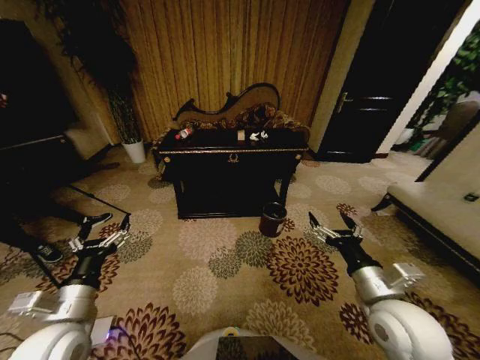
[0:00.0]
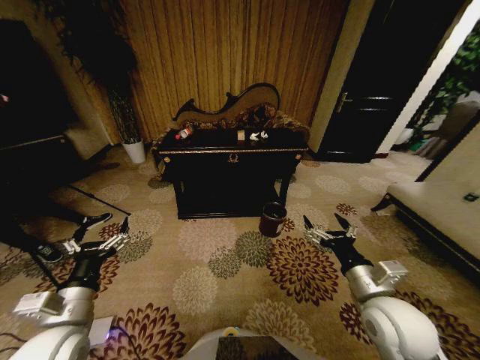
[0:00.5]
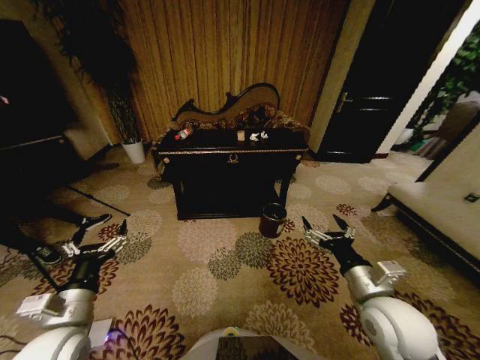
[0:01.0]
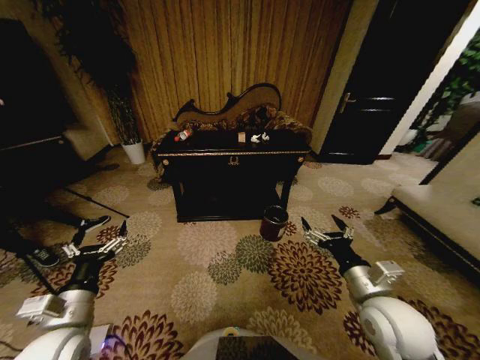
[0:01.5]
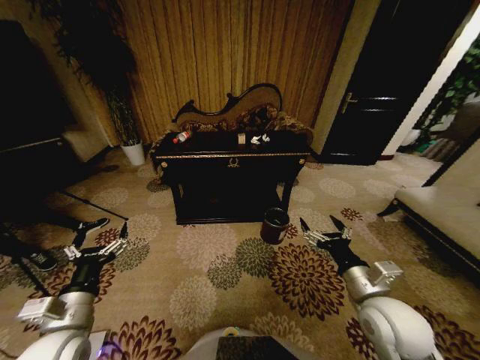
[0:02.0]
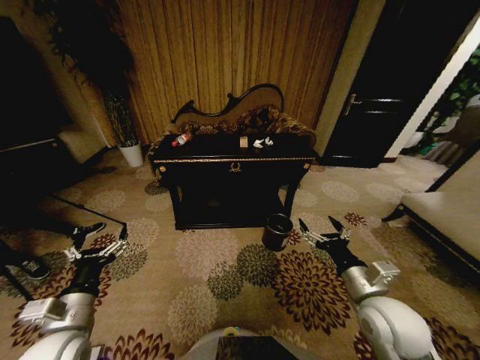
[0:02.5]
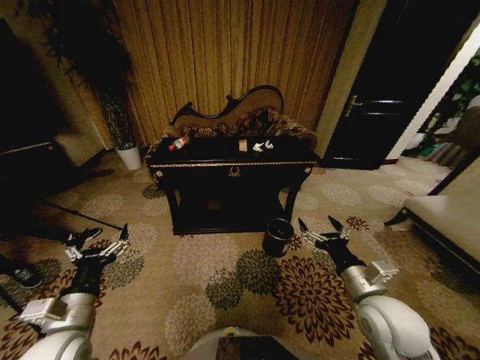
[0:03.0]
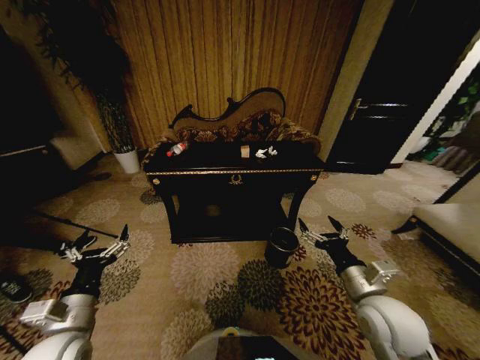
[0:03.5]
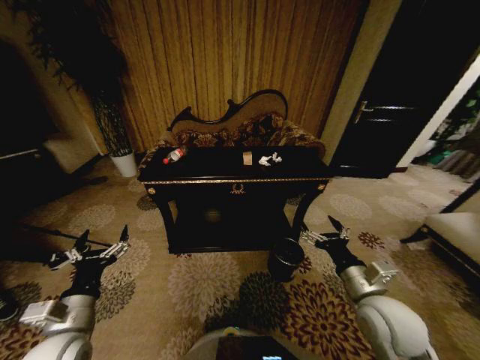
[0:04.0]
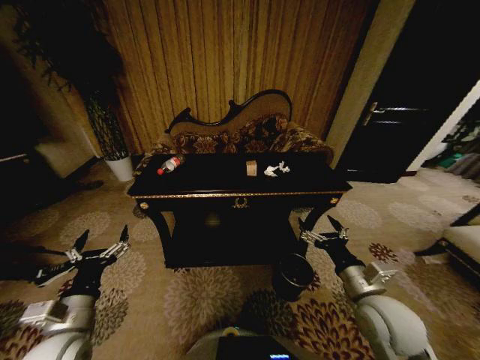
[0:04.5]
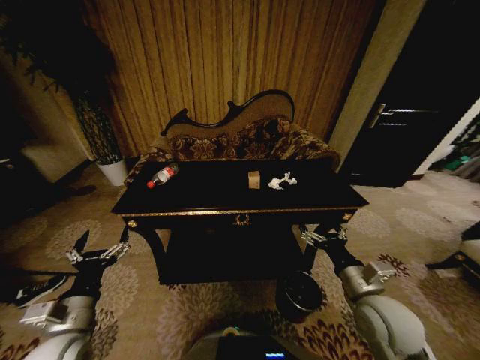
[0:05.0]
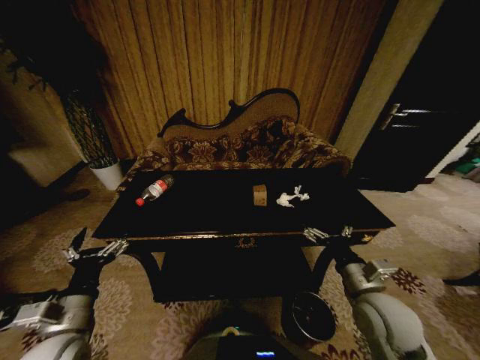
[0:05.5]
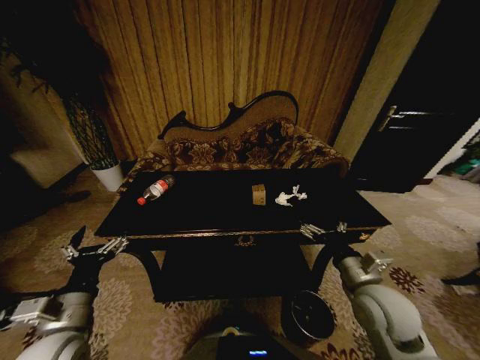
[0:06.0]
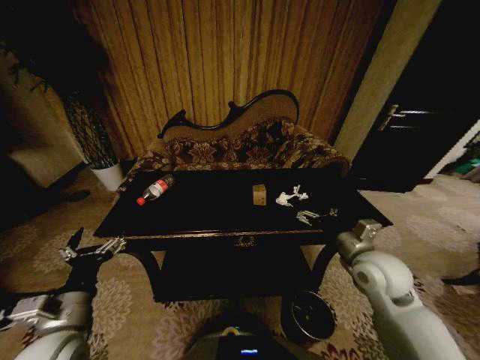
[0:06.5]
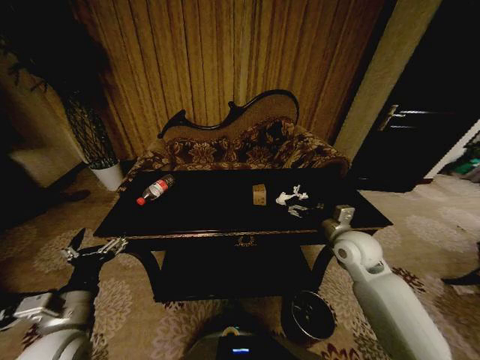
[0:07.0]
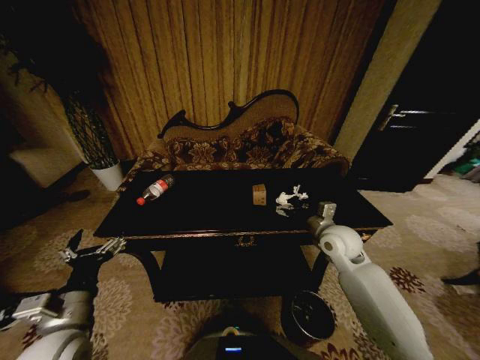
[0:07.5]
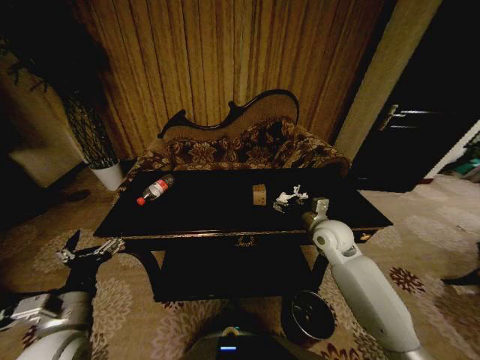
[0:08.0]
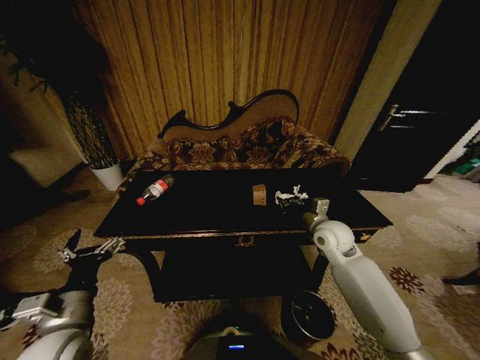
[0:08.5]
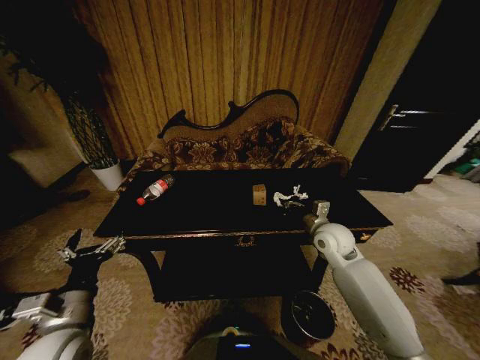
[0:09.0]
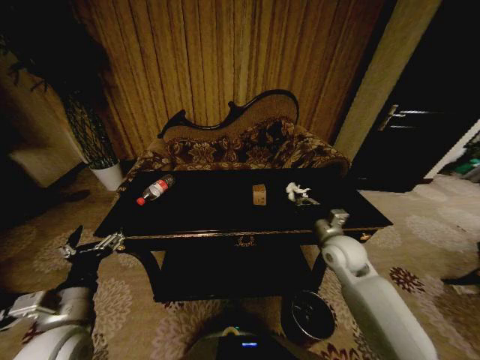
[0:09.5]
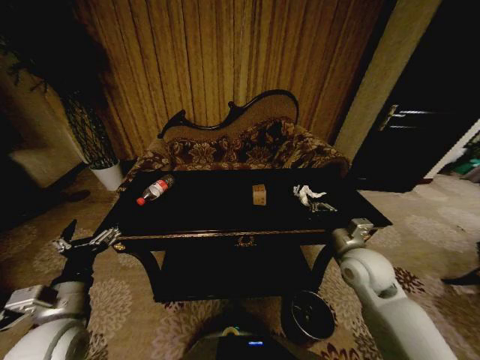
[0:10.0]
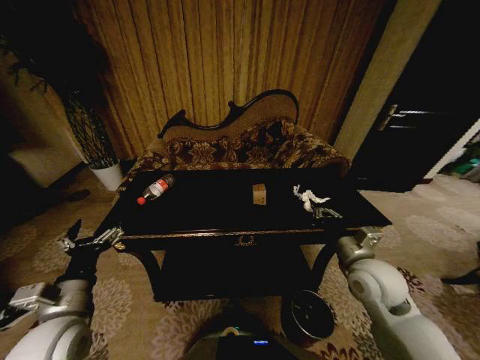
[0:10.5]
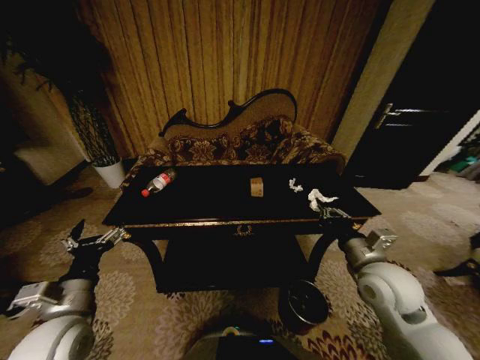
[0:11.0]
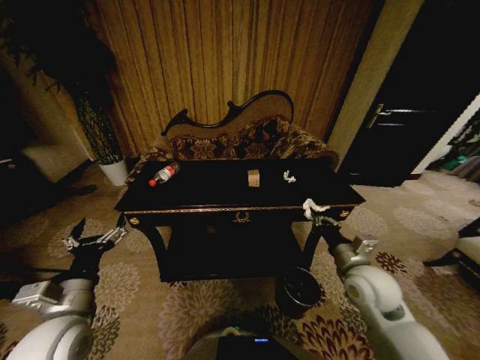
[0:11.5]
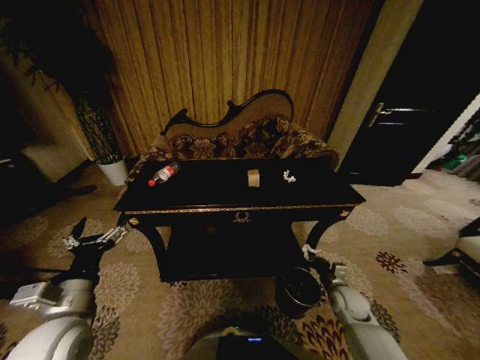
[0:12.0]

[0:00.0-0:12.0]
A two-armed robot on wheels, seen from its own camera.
Task of the whole recording: Move to the front of the table and place the trash on the table into the trash bin.
0:06.0 to 0:08.0: The right gripper is displaced forward by approximately 15 cm.
0:08.0 to 0:10.0: The right gripper heads backward, covering some 10 cm, and closes up.
0:10.0 to 0:12.0: The right gripper travels downward by roughly 20 cm.

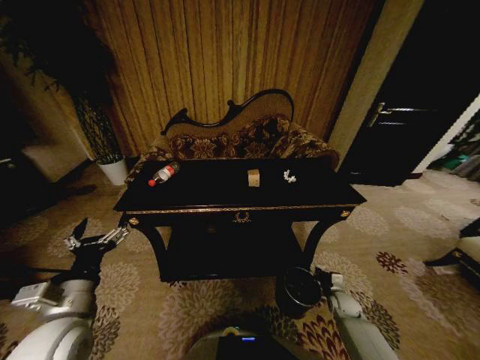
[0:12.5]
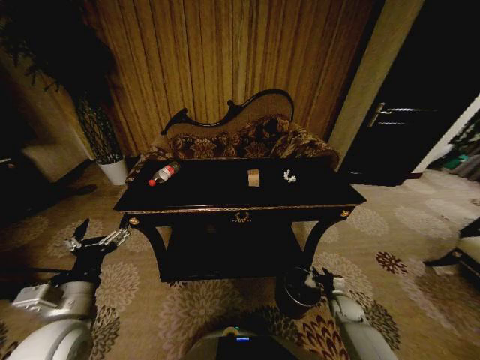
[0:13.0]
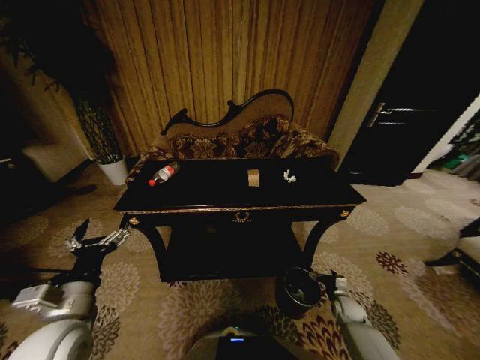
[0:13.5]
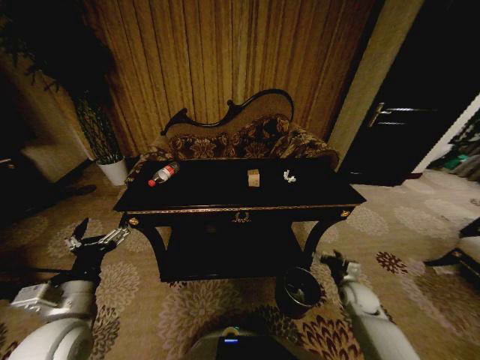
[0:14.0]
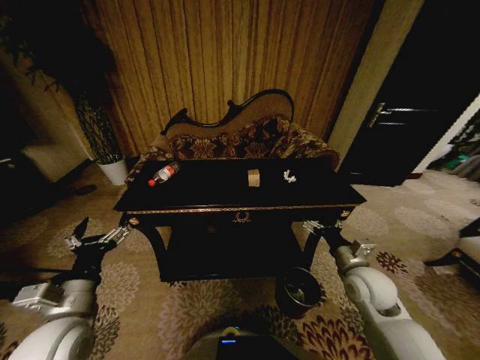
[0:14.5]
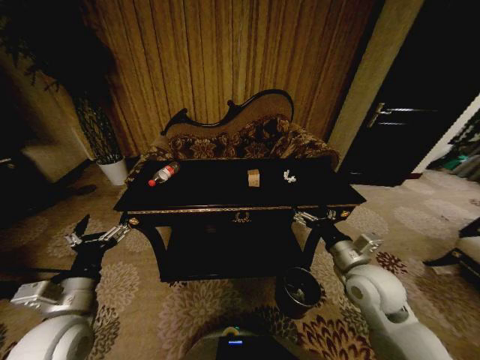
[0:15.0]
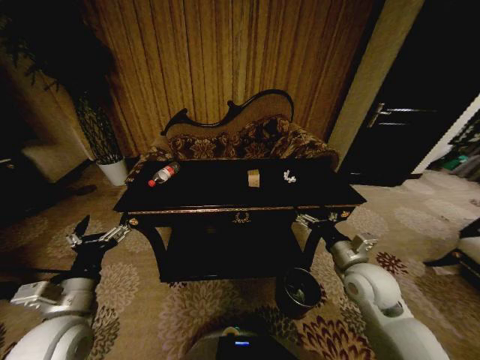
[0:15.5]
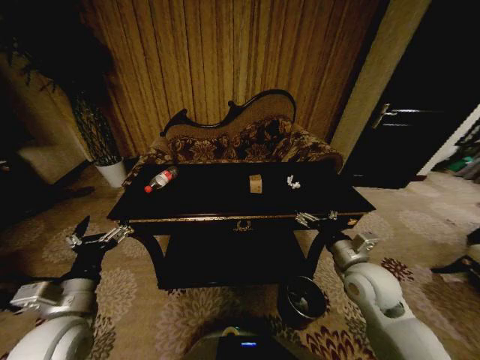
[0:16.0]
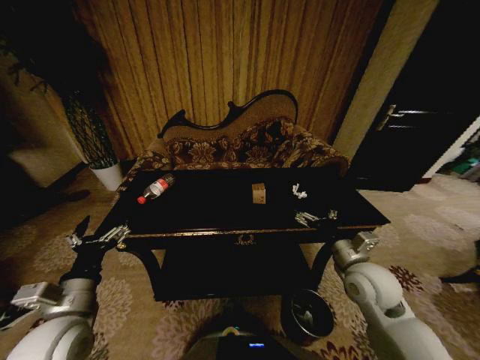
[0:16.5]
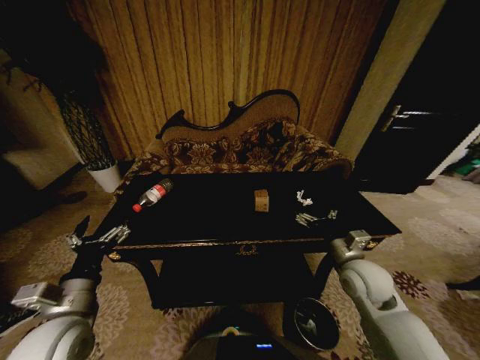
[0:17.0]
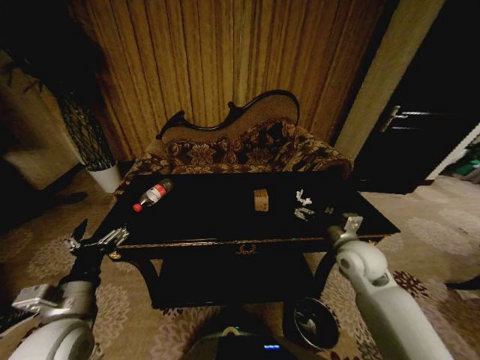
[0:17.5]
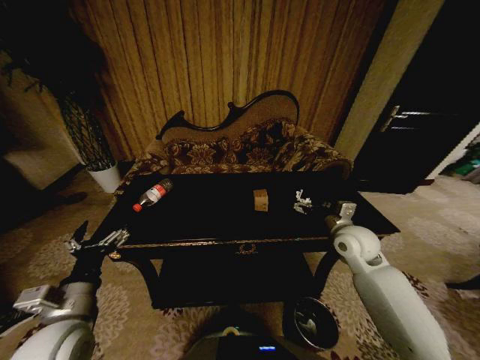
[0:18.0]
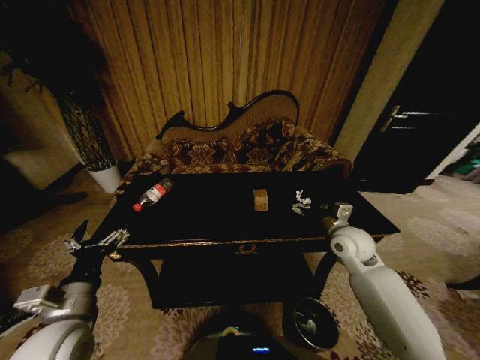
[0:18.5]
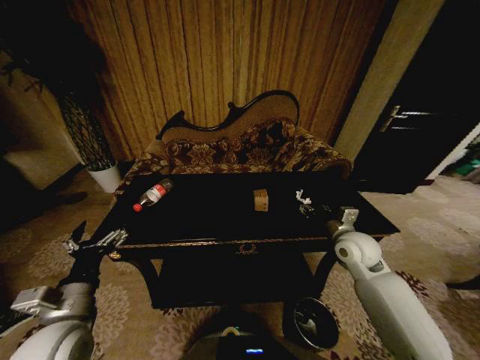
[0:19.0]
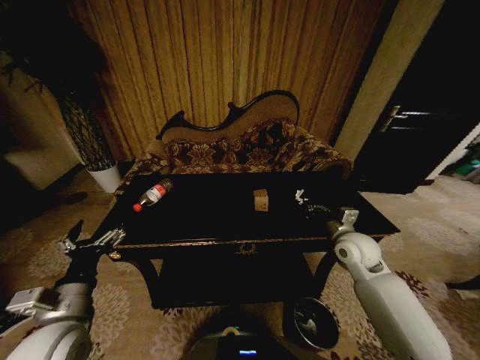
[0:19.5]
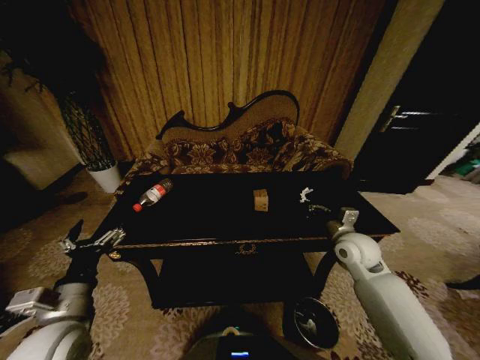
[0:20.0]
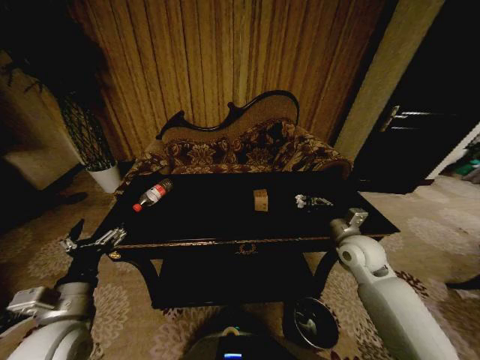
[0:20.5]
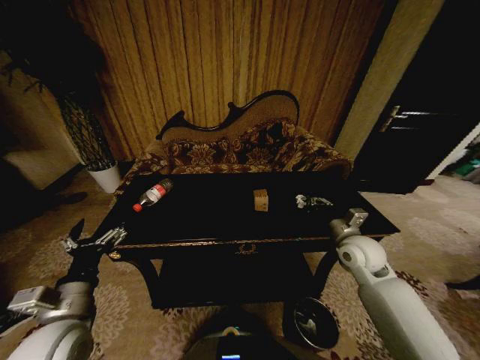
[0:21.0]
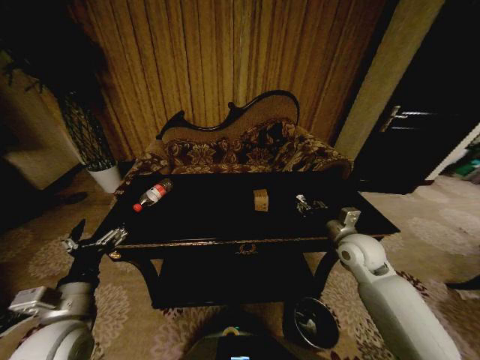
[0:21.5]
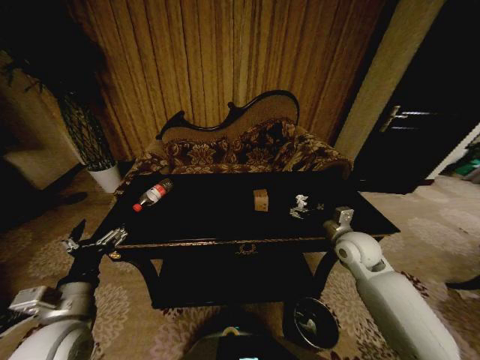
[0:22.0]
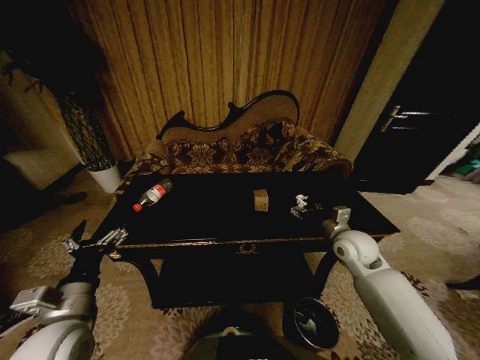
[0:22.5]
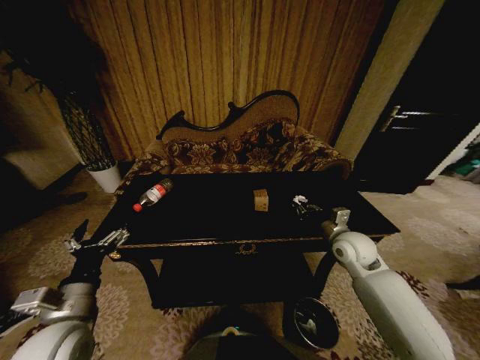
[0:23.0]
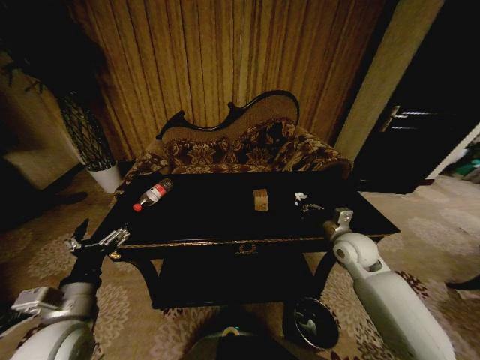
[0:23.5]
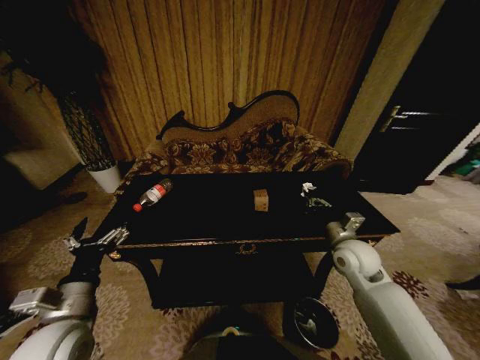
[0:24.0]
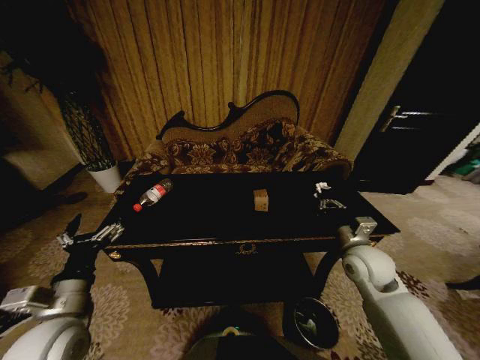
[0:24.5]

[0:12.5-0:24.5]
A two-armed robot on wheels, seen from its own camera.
Task of the whole recording: Move to the front of the table and place the trash on the table into the trash bin.
0:12.5 to 0:14.5: The right gripper shifts some 25 cm upward, and opens.
0:16.5 to 0:18.5: The right gripper is displaced forward by about 10 cm.
0:18.5 to 0:20.5: The right gripper closes up.
0:20.5 to 0:22.5: The right gripper opens its fingers.
0:22.5 to 0:24.5: The right gripper shifts roughly 5 cm backward, and closes.

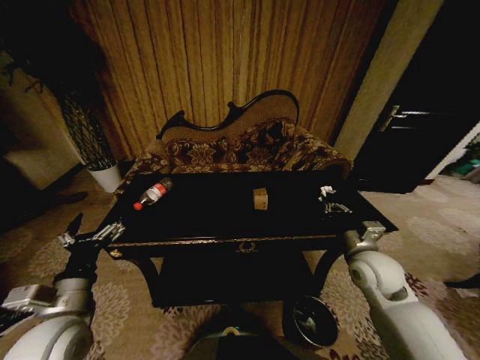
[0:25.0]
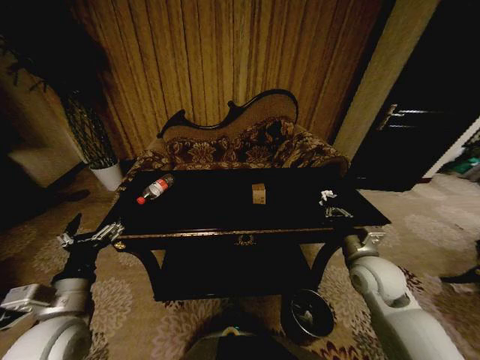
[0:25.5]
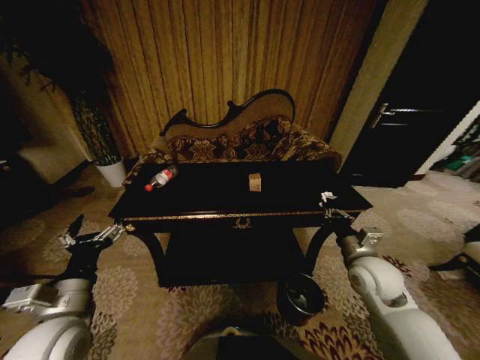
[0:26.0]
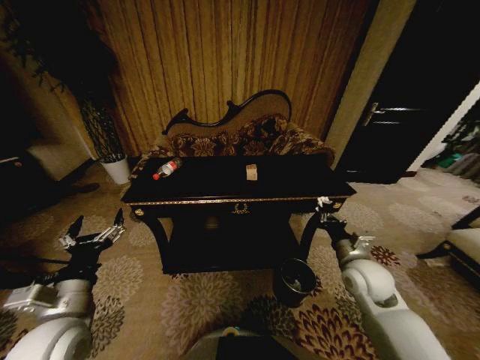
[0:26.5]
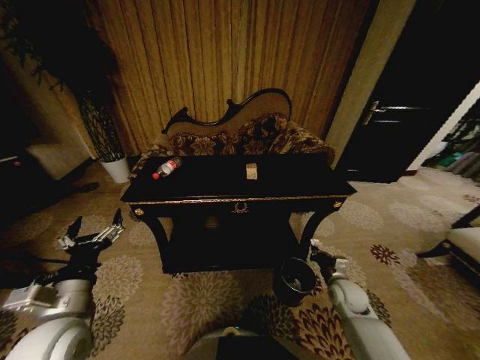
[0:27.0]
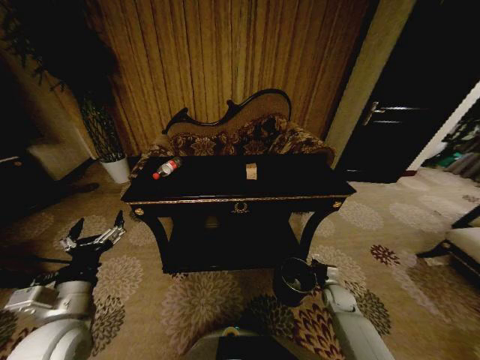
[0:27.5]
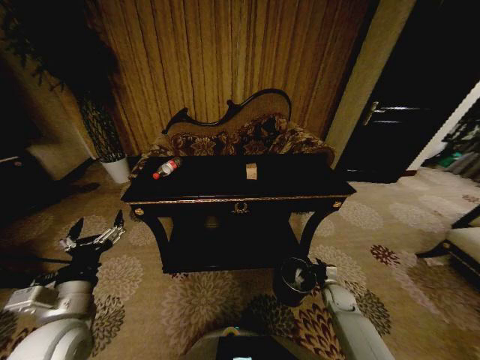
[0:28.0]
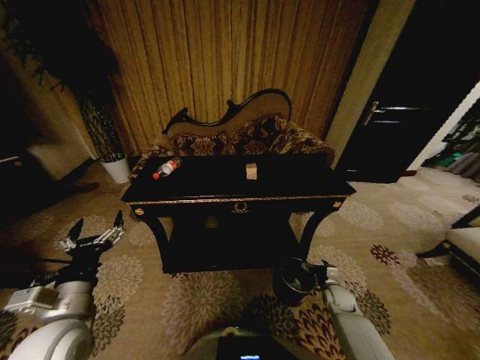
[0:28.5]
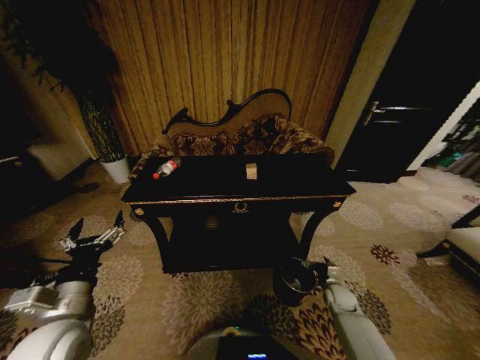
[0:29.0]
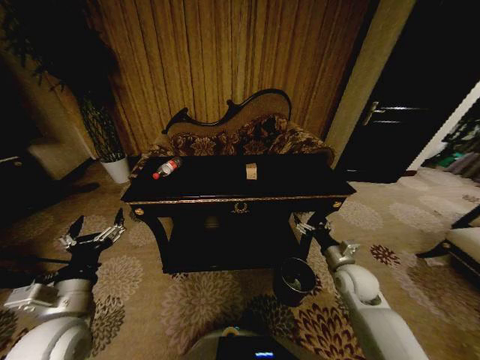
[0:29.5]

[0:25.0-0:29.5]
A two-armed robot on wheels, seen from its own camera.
Task of the whole recording: Move to the front of the table and place the trash on the table into the trash bin.
0:25.0 to 0:27.0: The right gripper moves downward, some 15 cm.
0:27.0 to 0:29.5: The right gripper shifts roughly 10 cm upward, and opens.
